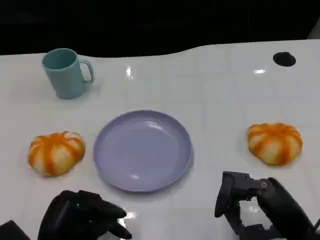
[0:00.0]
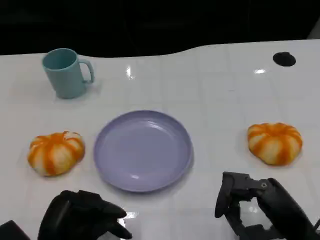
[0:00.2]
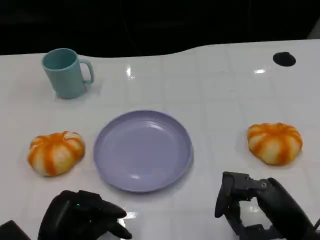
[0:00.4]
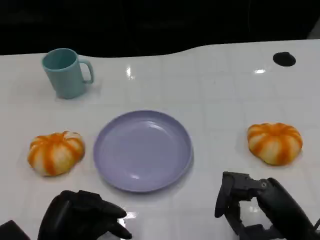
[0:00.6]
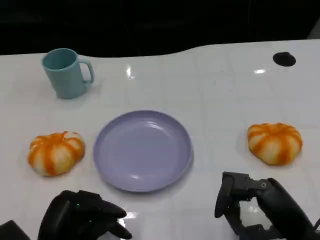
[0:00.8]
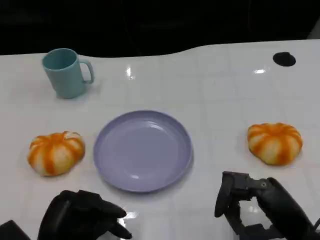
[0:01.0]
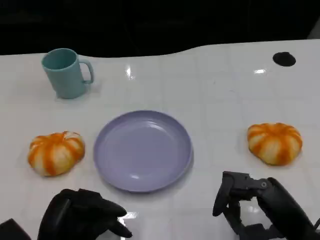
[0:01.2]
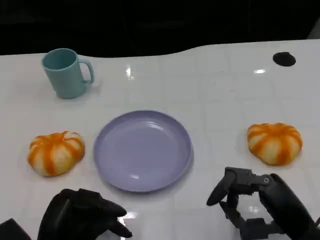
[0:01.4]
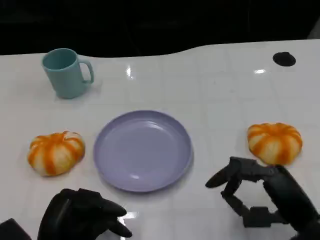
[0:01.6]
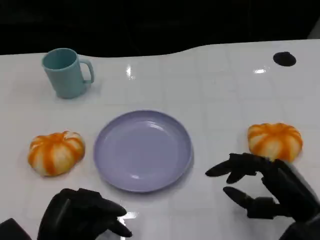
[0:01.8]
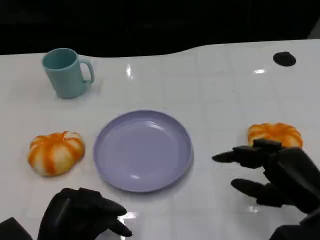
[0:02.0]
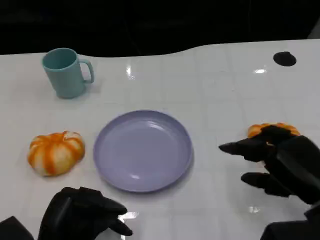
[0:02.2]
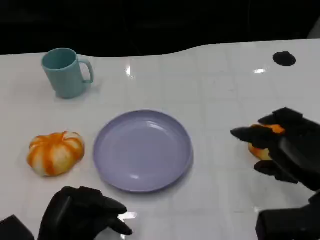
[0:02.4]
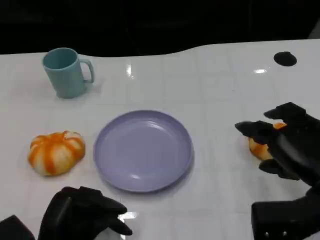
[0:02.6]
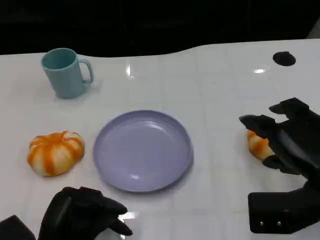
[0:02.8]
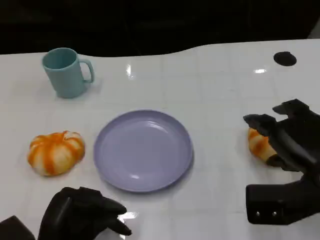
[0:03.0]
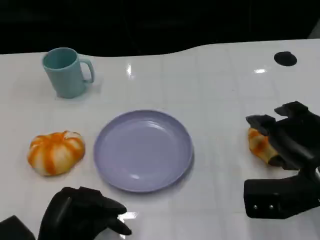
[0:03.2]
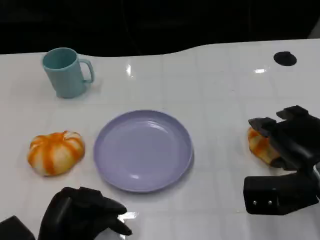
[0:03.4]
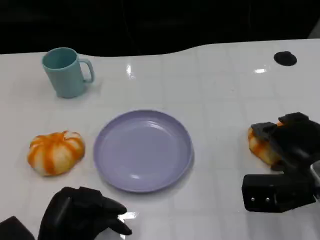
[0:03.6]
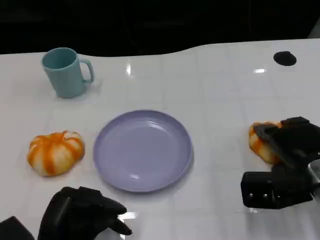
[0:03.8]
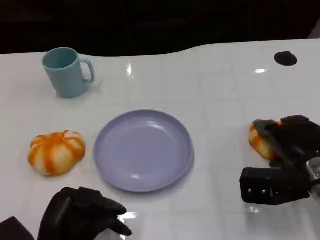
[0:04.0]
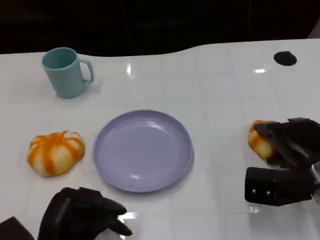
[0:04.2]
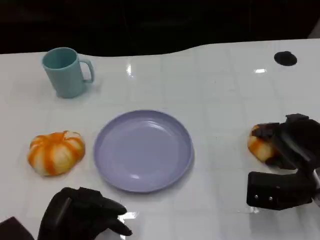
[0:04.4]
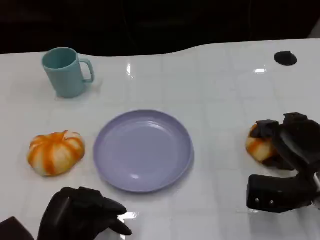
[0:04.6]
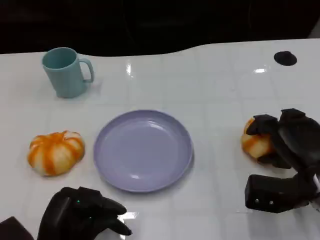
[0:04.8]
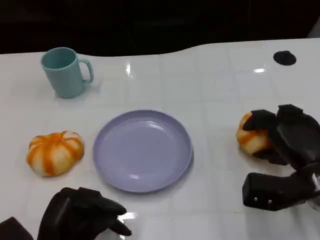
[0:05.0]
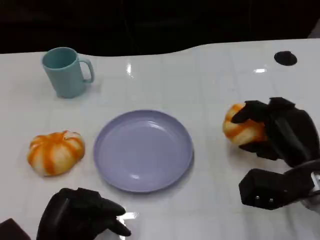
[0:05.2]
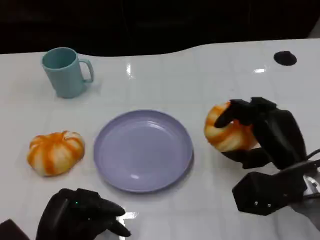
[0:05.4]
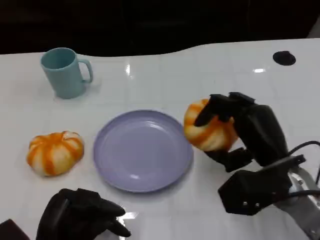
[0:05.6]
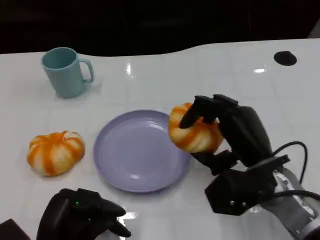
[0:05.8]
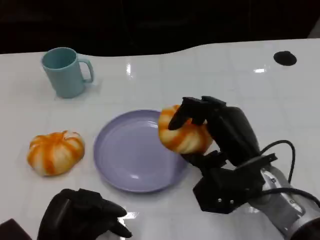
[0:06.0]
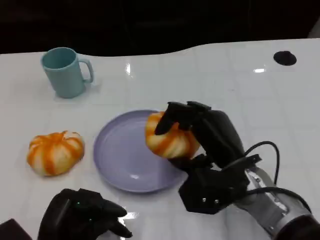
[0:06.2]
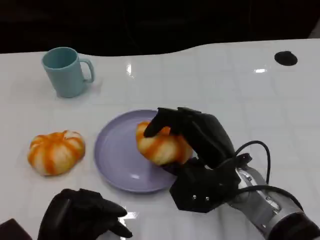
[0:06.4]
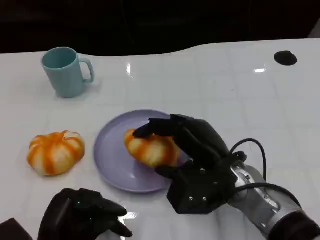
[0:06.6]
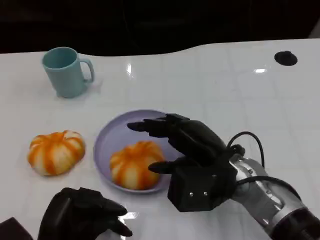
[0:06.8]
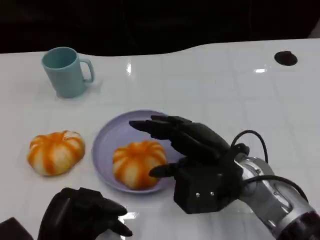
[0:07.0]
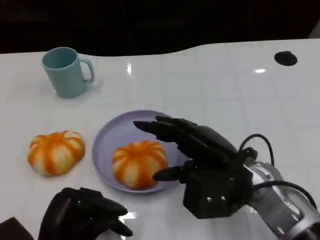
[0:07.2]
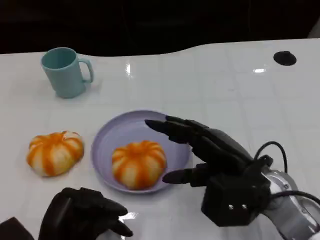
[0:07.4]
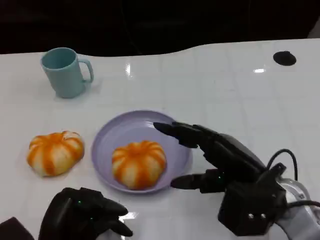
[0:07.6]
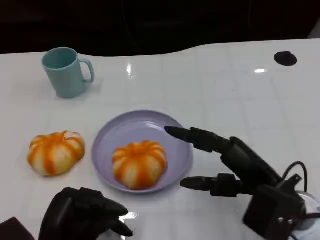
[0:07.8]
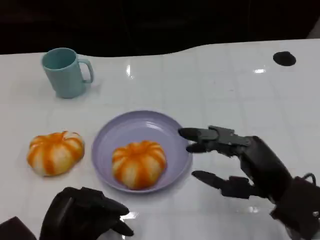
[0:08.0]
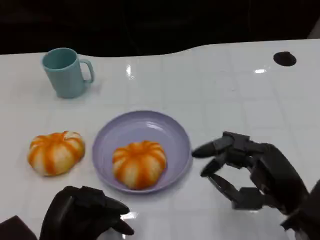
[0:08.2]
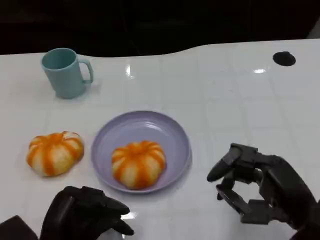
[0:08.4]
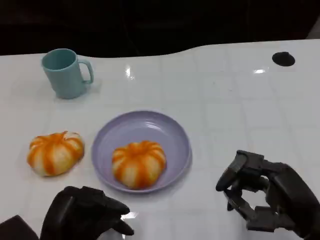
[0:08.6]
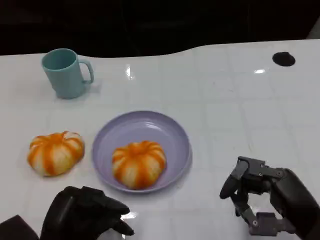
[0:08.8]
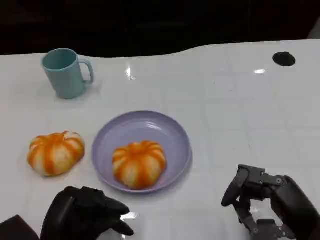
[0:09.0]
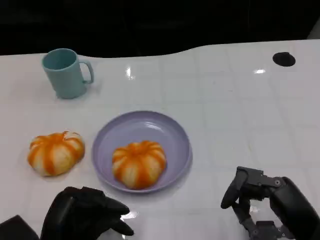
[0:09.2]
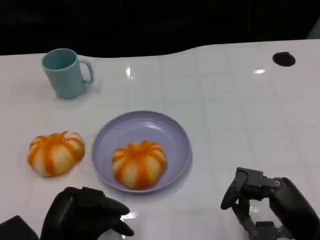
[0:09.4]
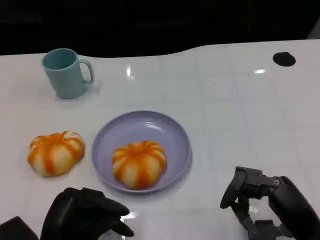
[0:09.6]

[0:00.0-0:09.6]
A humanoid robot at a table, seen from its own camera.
Task of the whole recording: Grasp the bread from the table and place it into the plate.
0:00.0 to 0:01.6: The hands make only small movements.
0:01.6 to 0:03.2: The right hand moves forward, some 5 cm.
0:03.2 to 0:04.8: The right hand travels downward by some 5 cm.
0:04.8 to 0:06.4: The right hand moves to the left, approximately 15 cm.
0:06.4 to 0:08.0: The right hand is displaced to the right and backward by roughly 10 cm.
0:08.0 to 0:09.6: The right hand ends up about 5 cm from where it was.

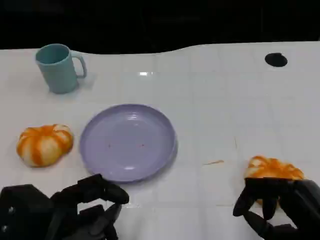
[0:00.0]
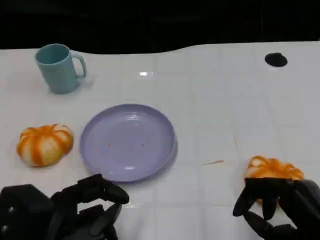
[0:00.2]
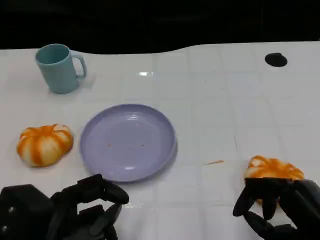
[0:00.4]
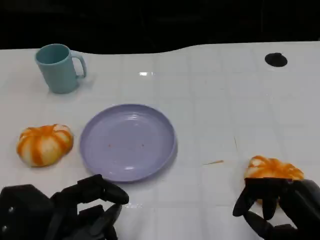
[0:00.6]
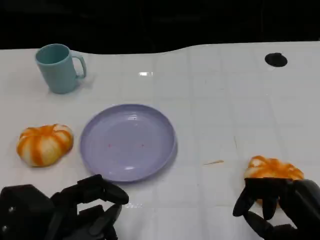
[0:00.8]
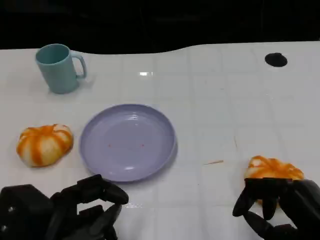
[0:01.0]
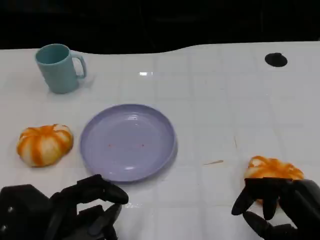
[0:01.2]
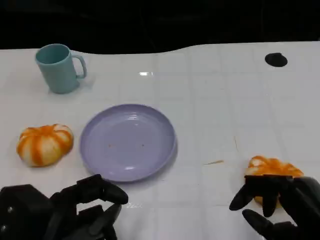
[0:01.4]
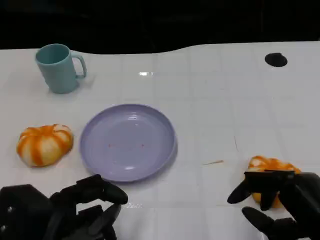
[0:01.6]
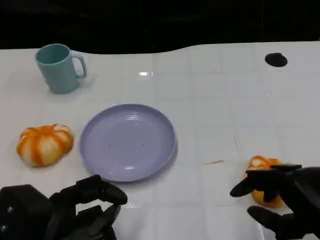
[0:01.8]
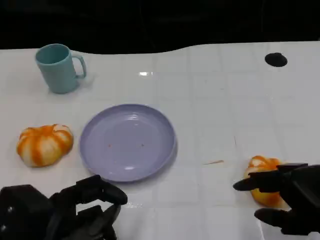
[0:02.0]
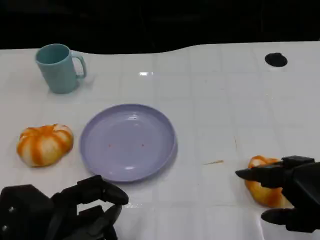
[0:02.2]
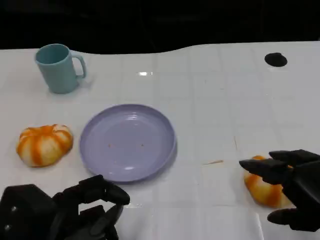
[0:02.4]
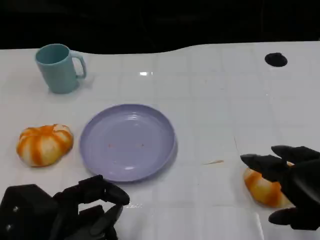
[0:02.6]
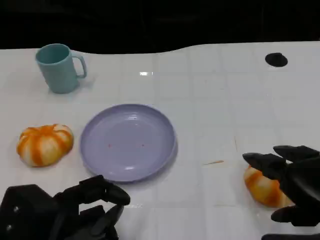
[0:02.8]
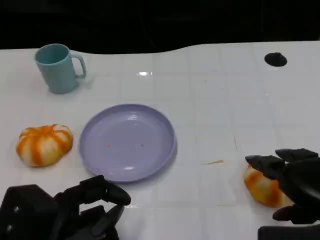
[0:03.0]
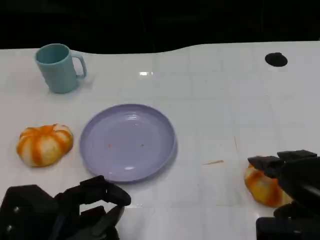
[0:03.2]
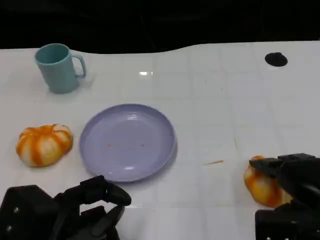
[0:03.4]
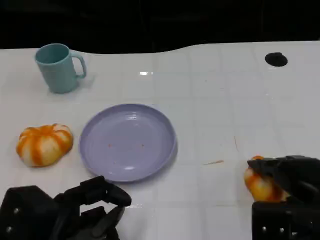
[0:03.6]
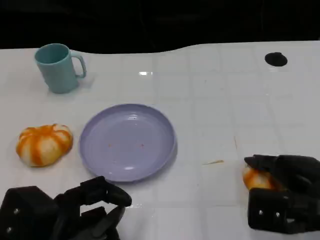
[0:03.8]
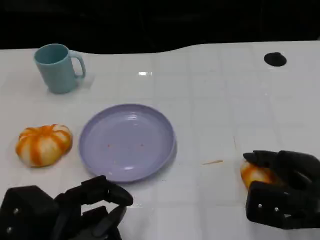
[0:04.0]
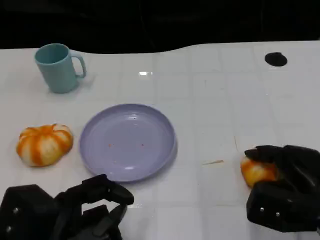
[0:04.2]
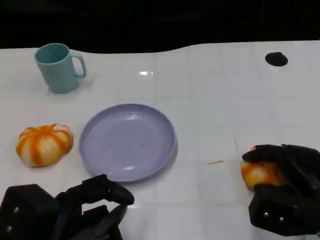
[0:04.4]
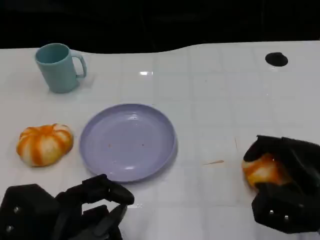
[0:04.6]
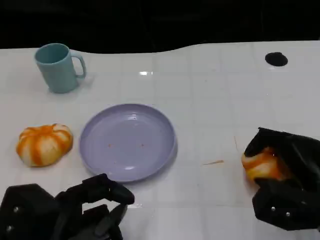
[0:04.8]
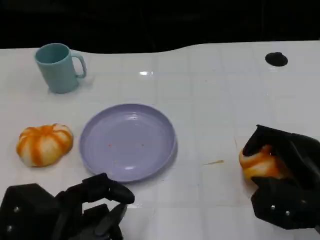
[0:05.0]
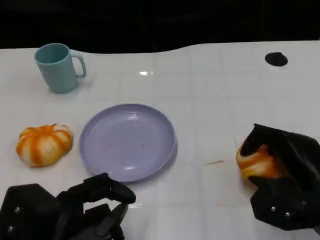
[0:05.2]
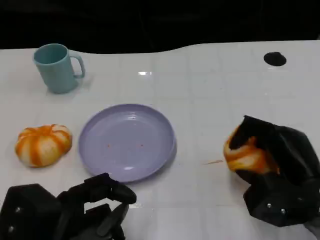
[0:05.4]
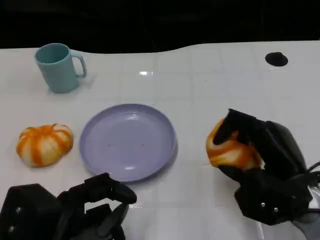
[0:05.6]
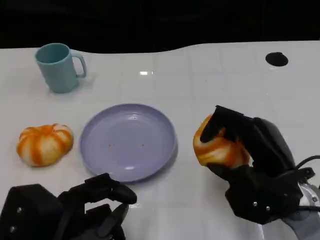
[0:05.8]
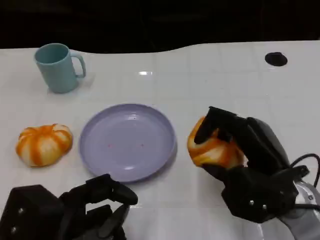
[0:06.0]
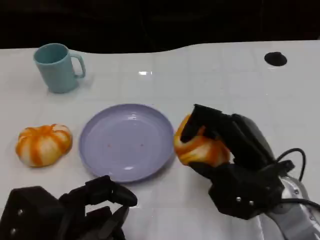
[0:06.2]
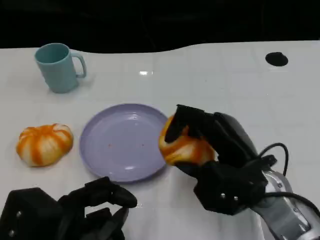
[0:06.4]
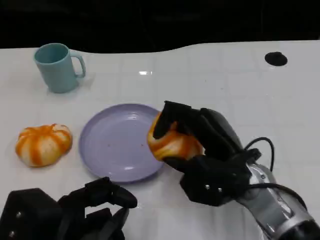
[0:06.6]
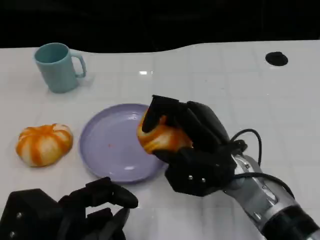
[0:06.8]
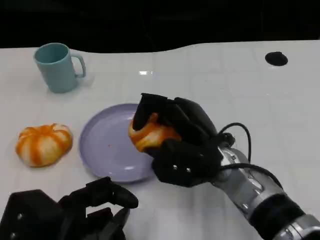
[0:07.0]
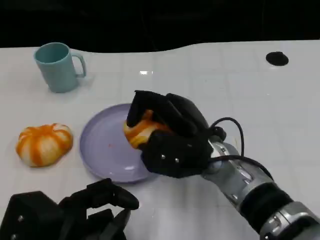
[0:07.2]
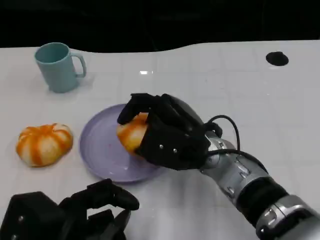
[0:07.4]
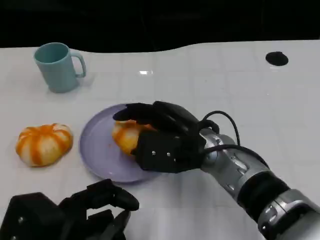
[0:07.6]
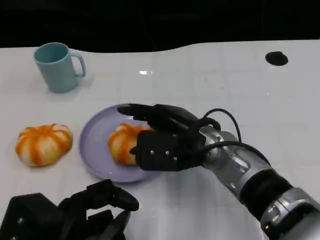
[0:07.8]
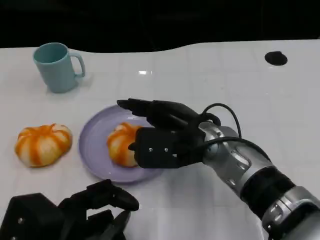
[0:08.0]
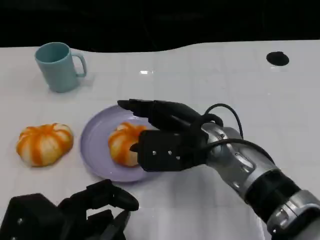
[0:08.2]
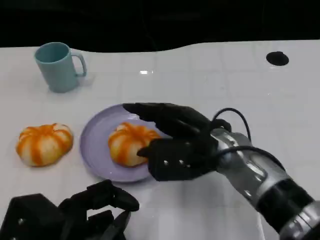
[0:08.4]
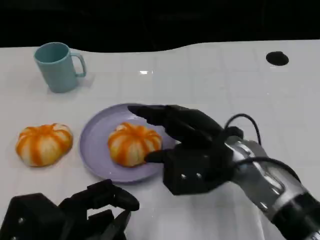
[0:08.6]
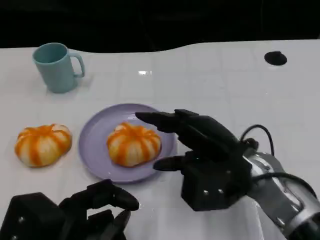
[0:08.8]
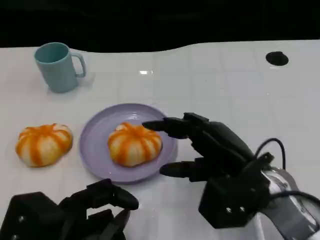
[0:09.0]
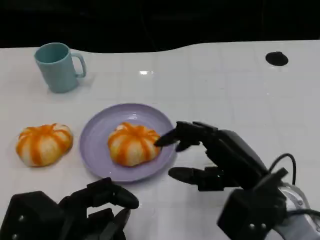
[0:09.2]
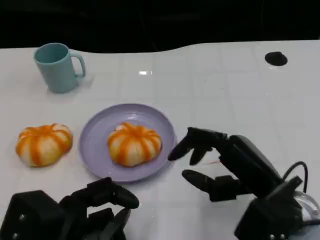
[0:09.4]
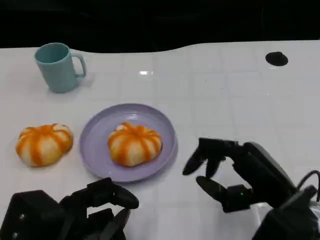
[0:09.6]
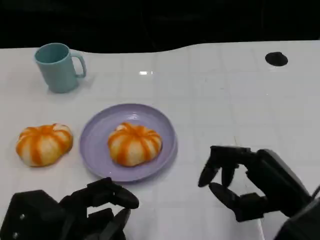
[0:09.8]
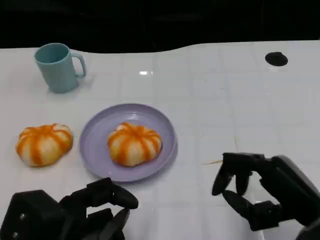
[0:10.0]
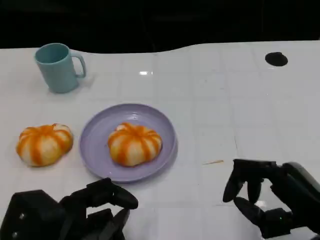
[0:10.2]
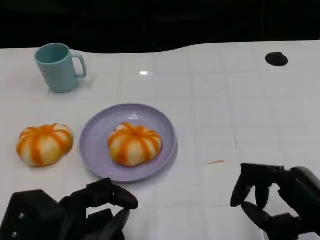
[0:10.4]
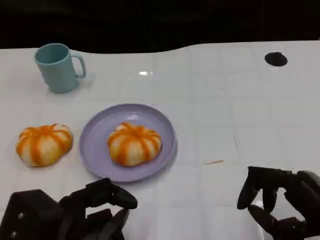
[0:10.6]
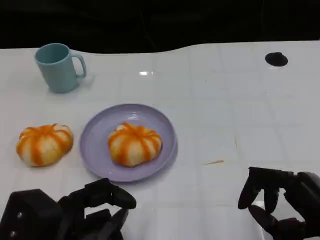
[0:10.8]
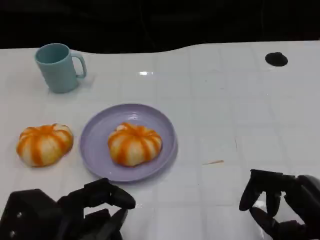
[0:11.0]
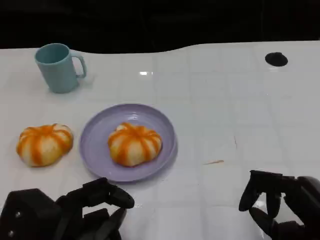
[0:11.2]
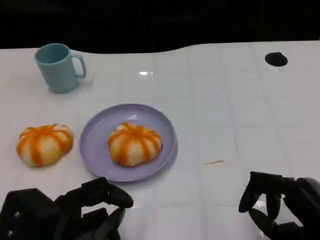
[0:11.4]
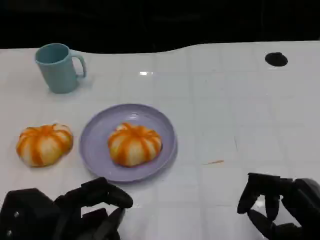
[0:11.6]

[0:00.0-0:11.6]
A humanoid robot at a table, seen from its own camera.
Task of the whole recording: Grasp the bread from the table and place it into the plate.
0:00.0 to 0:01.4: Both hands stay about where they are.
0:01.4 to 0:02.8: The right hand ends up about 5 cm from where it was.
0:02.8 to 0:04.4: The right hand goes approximately 10 cm downward and forward.
0:04.4 to 0:05.8: The right hand goes some 5 cm to the left.
0:05.8 to 0:07.2: The right hand travels to the left by about 10 cm.
0:07.2 to 0:08.8: The right hand heads to the right, covering some 5 cm.
0:08.8 to 0:10.2: The right hand moves to the right and backward, roughly 15 cm.
0:10.2 to 0:11.6: The hands stay close to where they were, moving slightly.

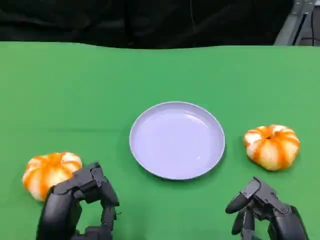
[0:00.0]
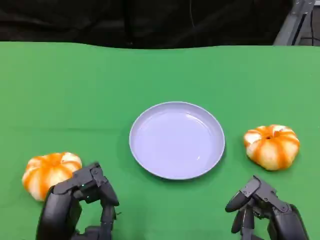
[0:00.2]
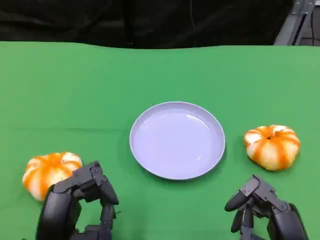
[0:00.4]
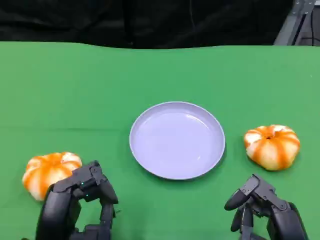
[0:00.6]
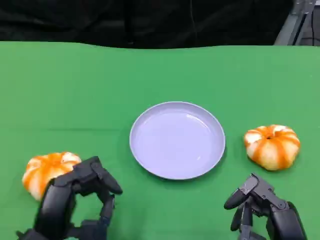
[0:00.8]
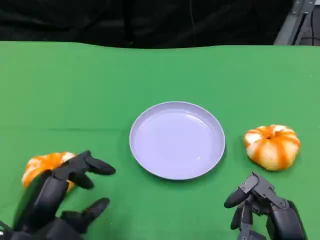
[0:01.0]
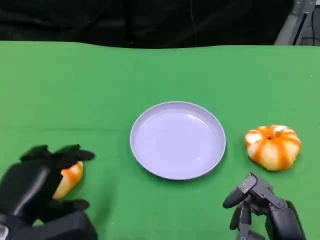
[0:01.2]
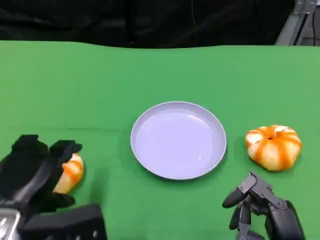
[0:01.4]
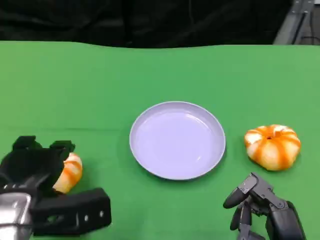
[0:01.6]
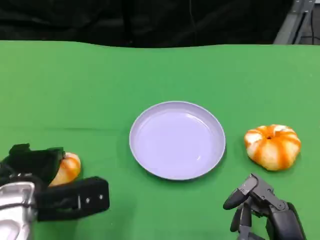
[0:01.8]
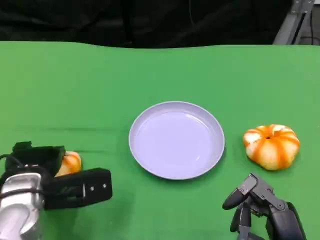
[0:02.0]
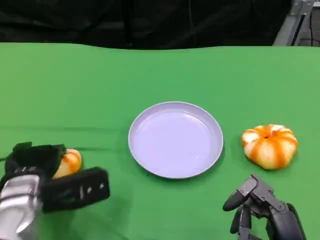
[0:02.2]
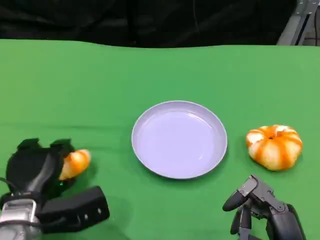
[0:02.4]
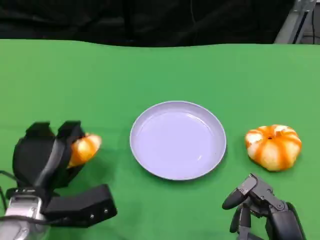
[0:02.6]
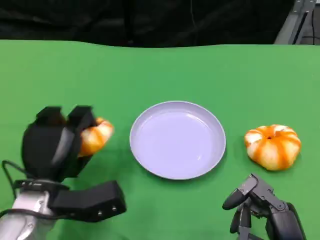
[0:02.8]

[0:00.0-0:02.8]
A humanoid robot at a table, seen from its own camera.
Task of the whole recording: Grasp the bread from the table and place it into the plate.
0:00.0 to 0:01.4: The left hand changes place by roughly 10 cm.
0:01.4 to 0:02.8: The left hand moves forward, some 5 cm.
